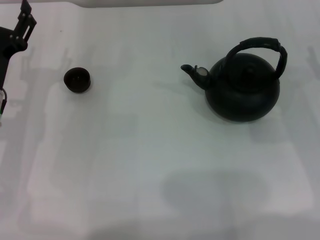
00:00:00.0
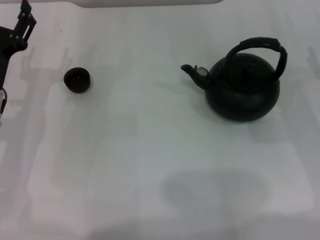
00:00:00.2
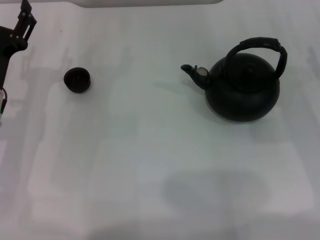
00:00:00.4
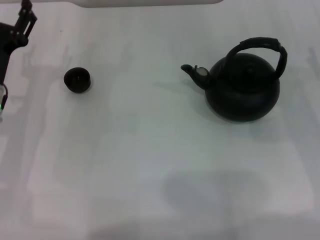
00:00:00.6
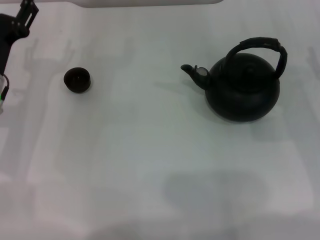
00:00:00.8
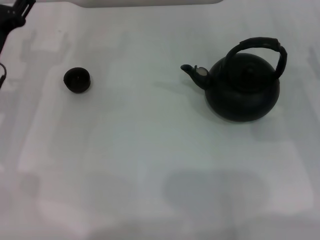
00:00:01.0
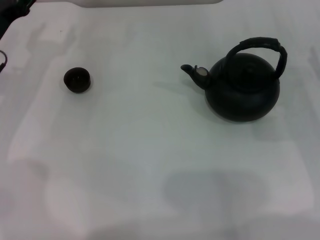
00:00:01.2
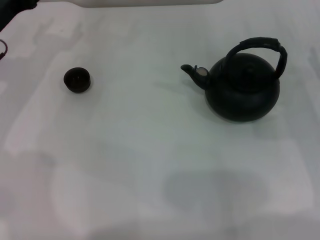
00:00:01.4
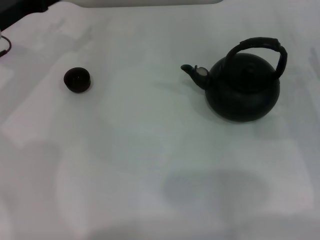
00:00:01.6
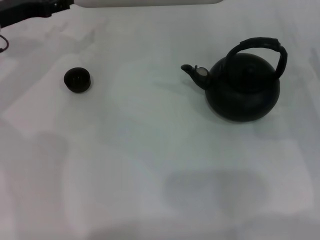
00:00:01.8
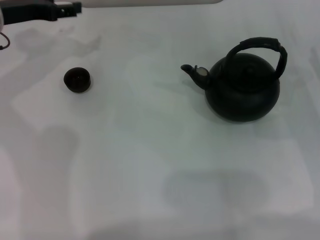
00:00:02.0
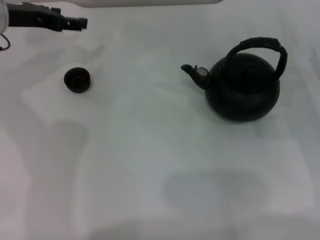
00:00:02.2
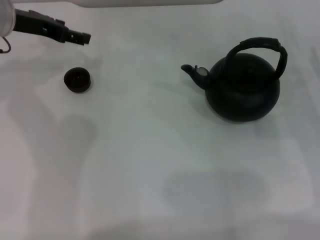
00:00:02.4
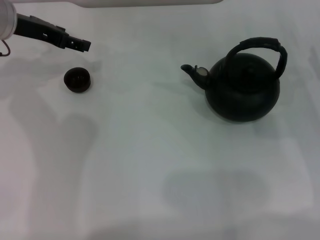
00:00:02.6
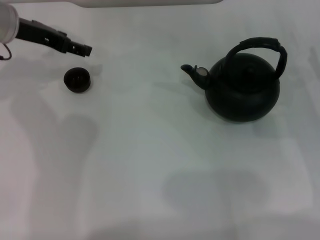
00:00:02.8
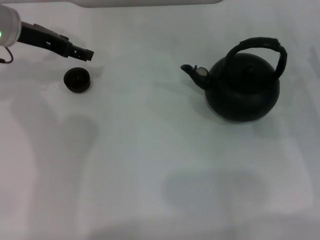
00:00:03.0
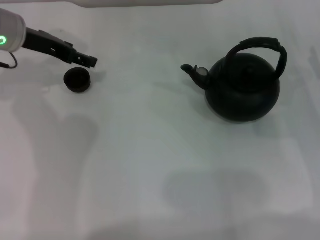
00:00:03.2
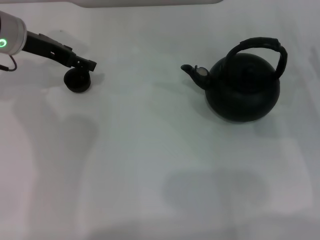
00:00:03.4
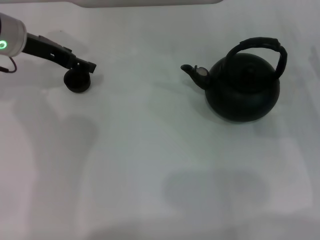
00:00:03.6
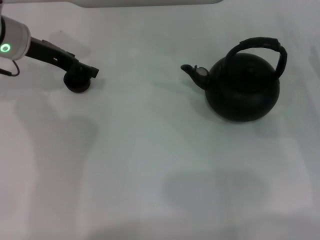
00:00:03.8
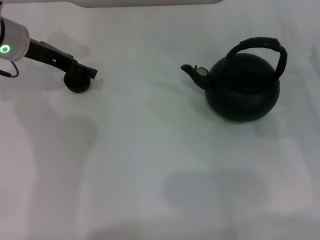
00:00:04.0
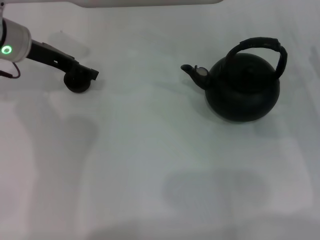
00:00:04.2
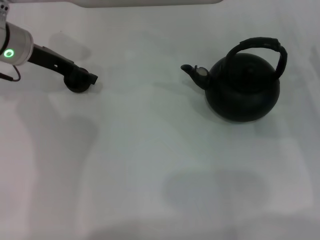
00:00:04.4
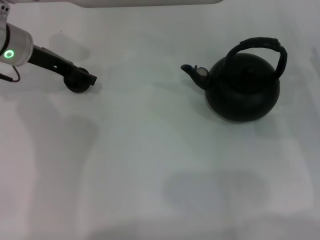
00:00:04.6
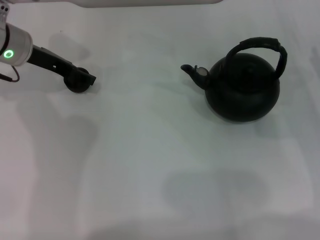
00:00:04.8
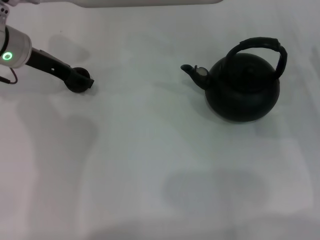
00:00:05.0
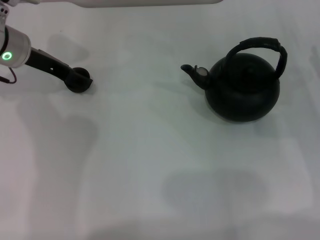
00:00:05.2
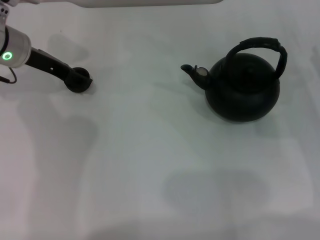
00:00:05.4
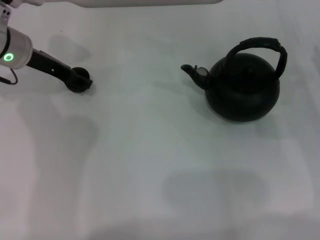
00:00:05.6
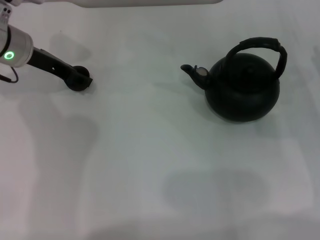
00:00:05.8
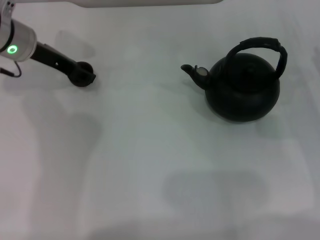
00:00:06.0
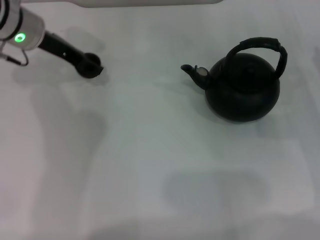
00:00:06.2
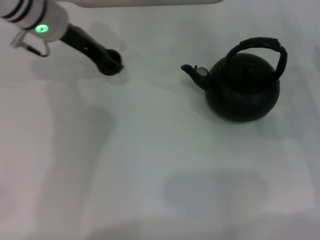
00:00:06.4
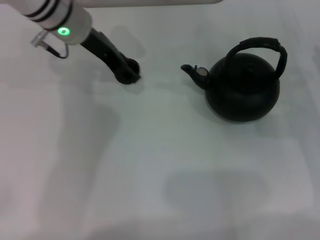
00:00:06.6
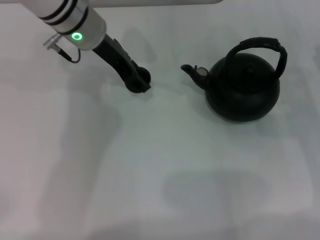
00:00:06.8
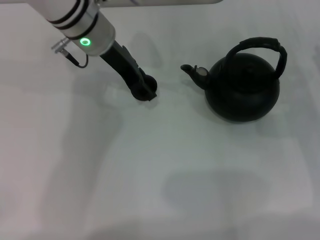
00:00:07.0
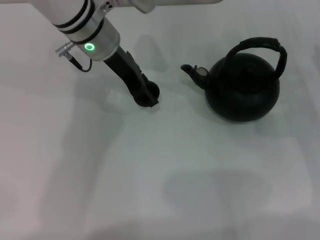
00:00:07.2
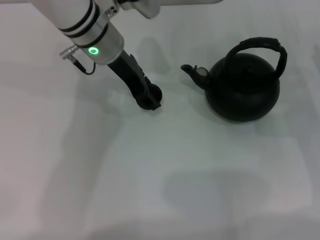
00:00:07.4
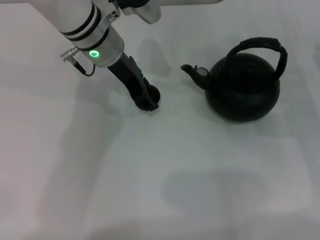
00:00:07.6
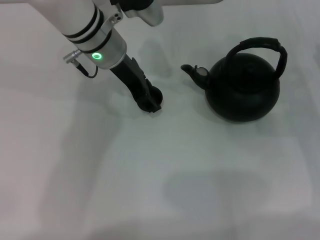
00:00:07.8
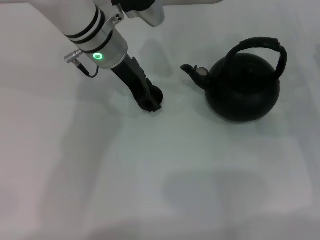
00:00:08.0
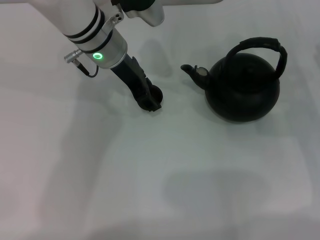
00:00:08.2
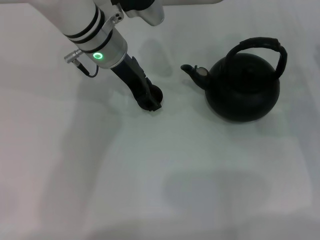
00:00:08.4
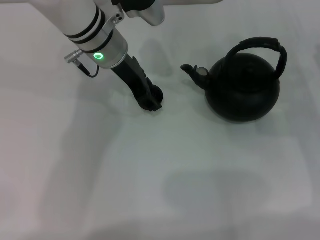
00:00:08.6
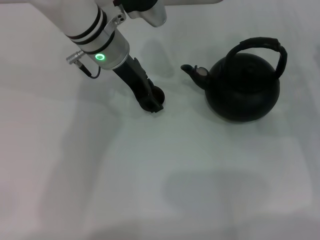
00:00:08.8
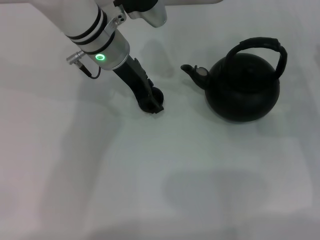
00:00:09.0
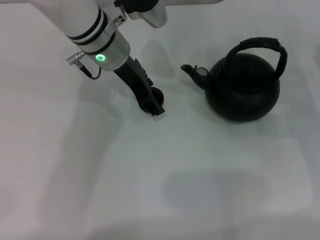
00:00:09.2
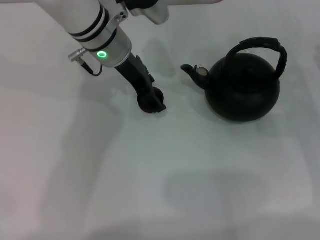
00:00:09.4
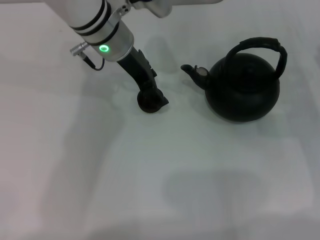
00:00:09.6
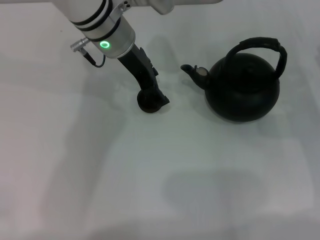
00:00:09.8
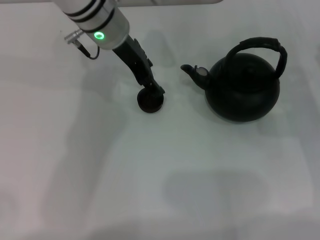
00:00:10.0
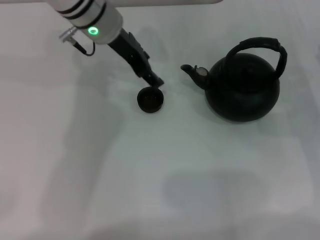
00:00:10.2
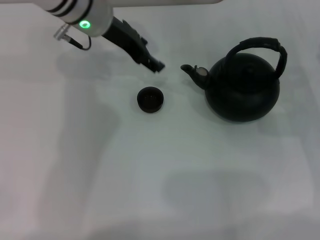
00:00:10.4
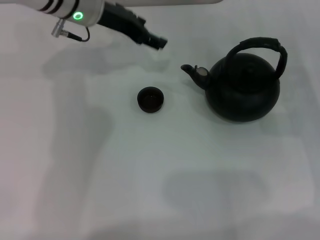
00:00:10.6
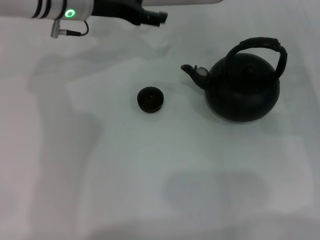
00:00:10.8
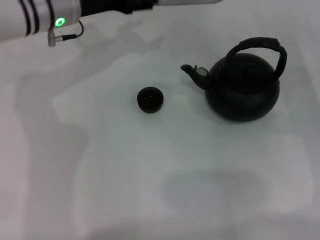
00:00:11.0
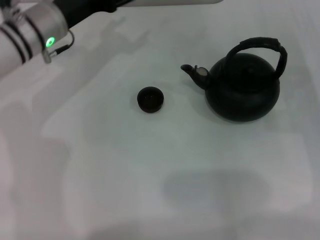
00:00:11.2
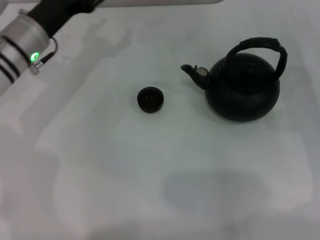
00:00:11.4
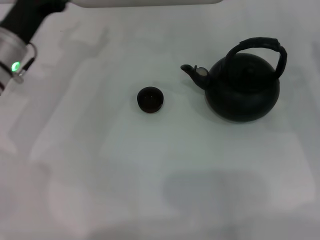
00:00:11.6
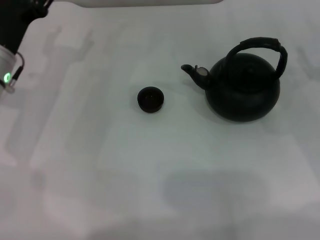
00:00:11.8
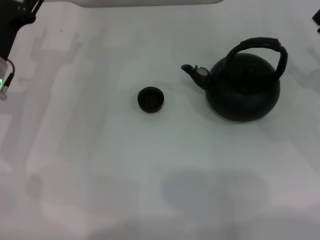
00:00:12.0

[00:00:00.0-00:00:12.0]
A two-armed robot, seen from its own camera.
Task of the whole recording: Grasp the handle of the teapot with one hand and pour tea into the teacup.
Step, 00:00:00.0 to 00:00:06.6: Pick up the teacup with the left gripper.
Step, 00:00:06.8 to 00:00:10.2: Place the teacup in the center of view with the left gripper.
00:00:00.0 to 00:00:01.6: The left gripper heads forward and upward, covering some 15 cm.
00:00:01.6 to 00:00:03.0: The left gripper changes place by about 5 cm.
00:00:03.0 to 00:00:04.4: There are only small adjustments of the grippers.
00:00:04.4 to 00:00:06.0: The left gripper closes.
00:00:06.0 to 00:00:07.6: The left gripper is displaced to the right by about 15 cm.
00:00:07.6 to 00:00:09.0: Both grippers stay put.
00:00:09.0 to 00:00:10.4: The left gripper opens up.
00:00:10.4 to 00:00:12.0: The left gripper travels to the left, backward and downward by about 20 cm.

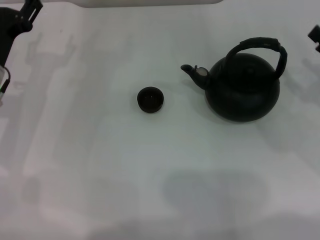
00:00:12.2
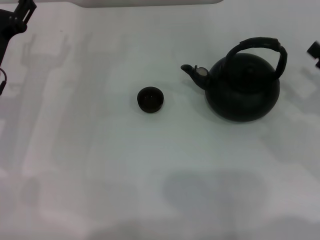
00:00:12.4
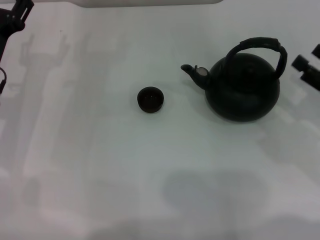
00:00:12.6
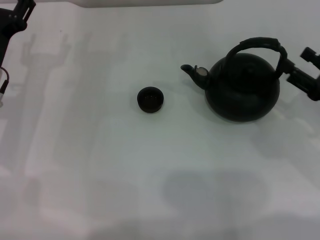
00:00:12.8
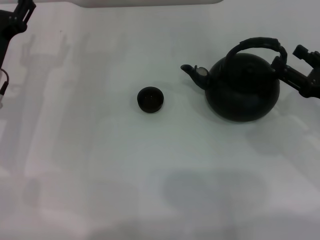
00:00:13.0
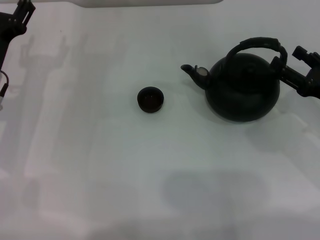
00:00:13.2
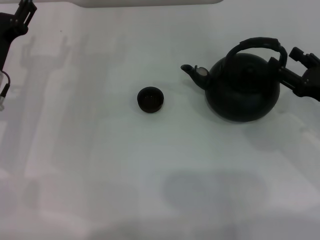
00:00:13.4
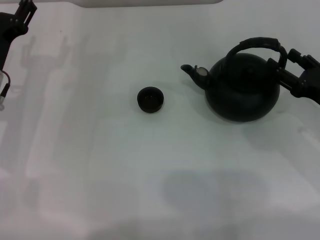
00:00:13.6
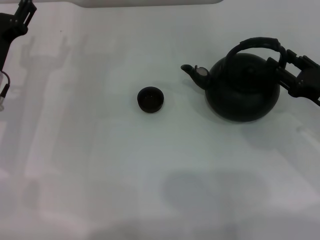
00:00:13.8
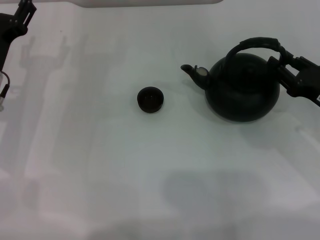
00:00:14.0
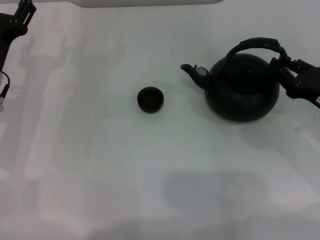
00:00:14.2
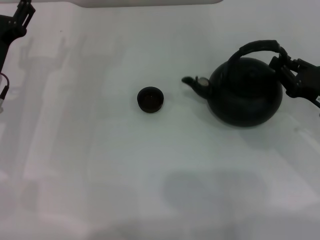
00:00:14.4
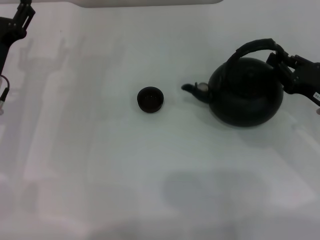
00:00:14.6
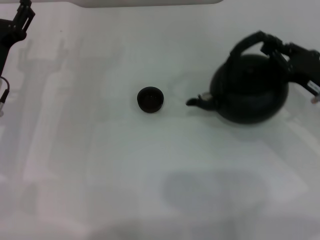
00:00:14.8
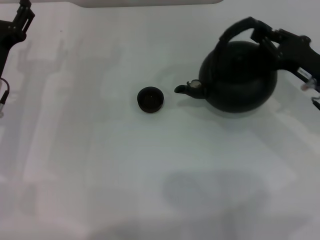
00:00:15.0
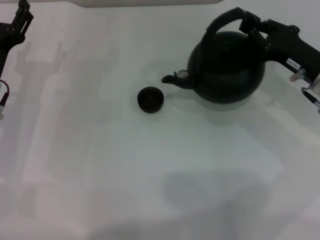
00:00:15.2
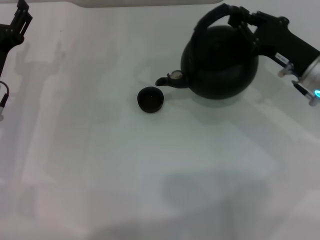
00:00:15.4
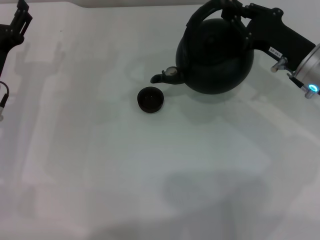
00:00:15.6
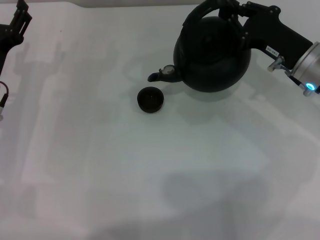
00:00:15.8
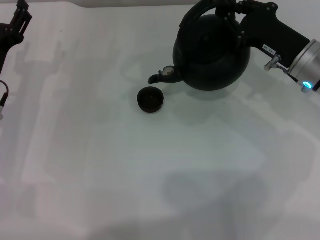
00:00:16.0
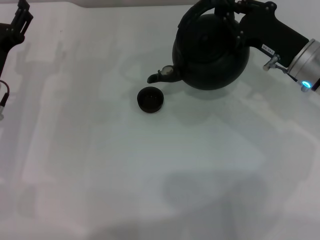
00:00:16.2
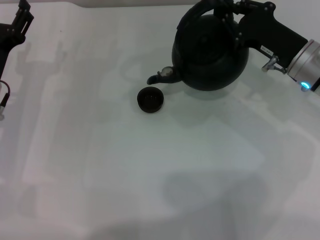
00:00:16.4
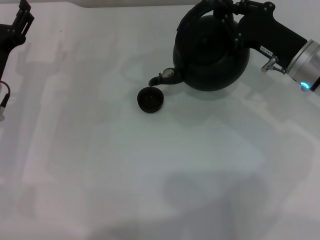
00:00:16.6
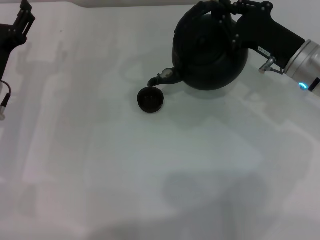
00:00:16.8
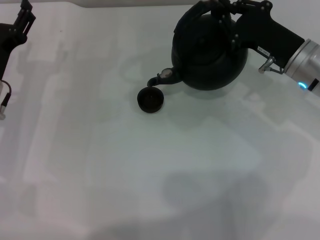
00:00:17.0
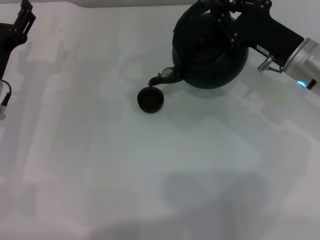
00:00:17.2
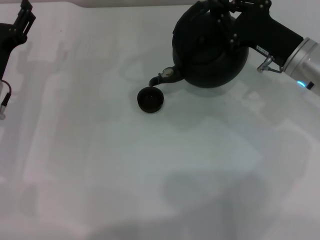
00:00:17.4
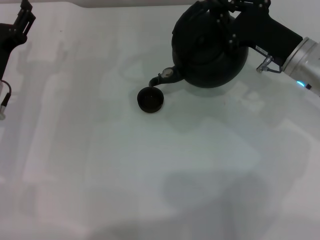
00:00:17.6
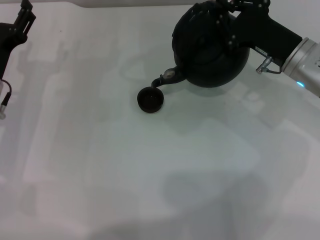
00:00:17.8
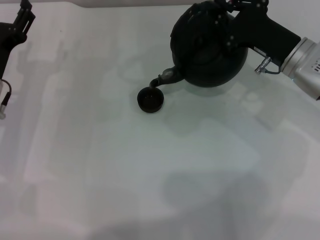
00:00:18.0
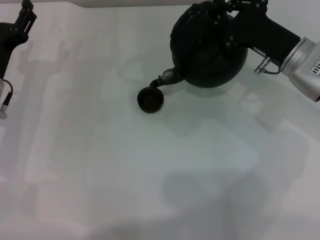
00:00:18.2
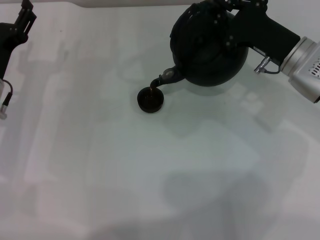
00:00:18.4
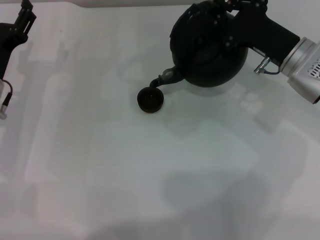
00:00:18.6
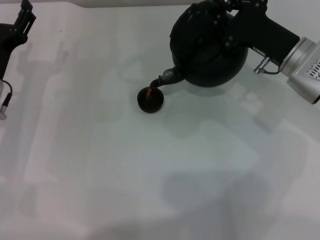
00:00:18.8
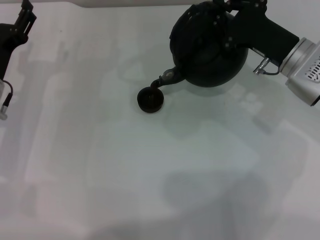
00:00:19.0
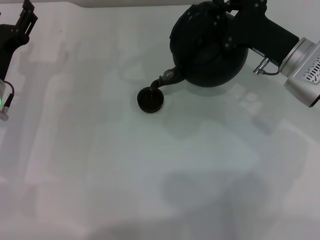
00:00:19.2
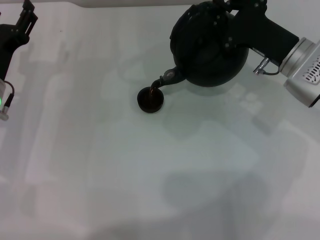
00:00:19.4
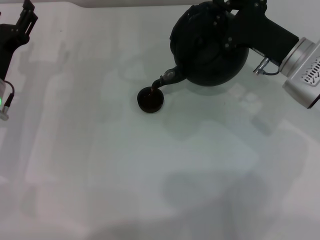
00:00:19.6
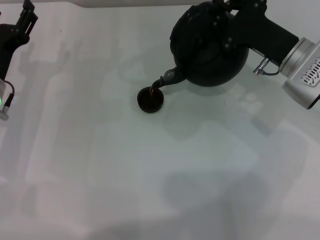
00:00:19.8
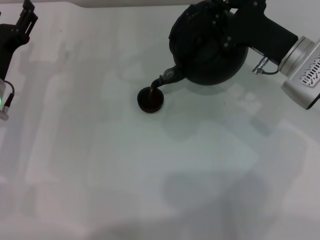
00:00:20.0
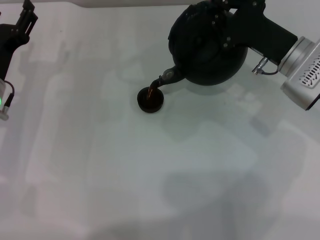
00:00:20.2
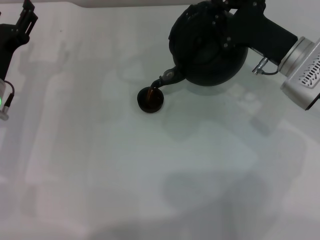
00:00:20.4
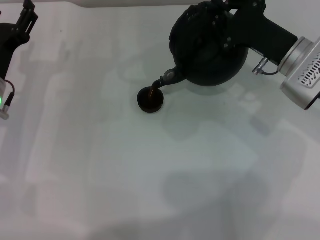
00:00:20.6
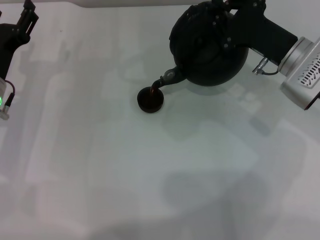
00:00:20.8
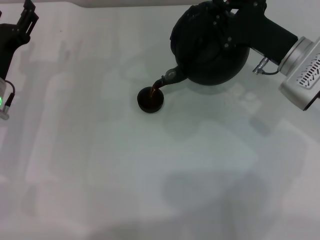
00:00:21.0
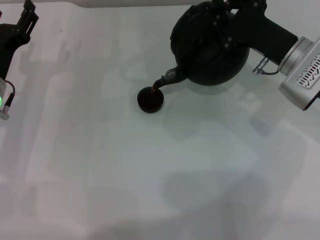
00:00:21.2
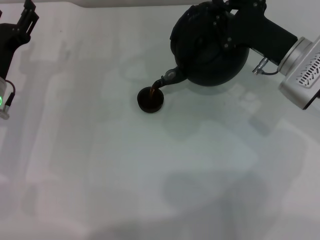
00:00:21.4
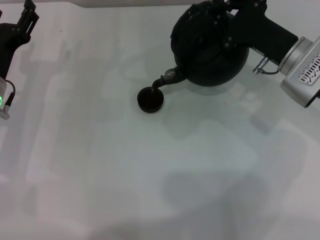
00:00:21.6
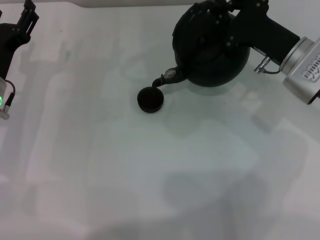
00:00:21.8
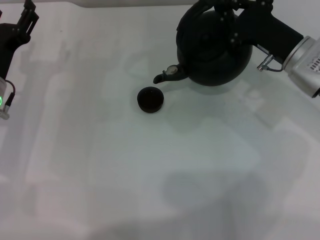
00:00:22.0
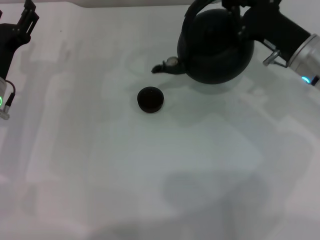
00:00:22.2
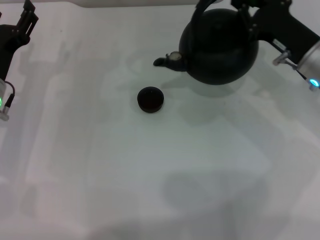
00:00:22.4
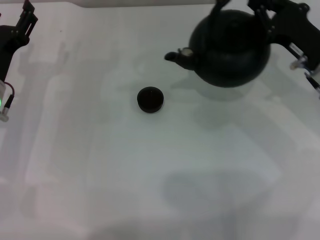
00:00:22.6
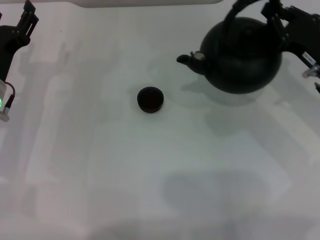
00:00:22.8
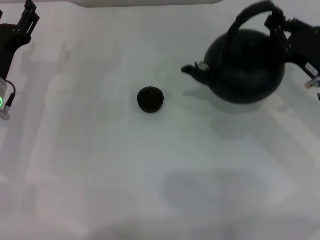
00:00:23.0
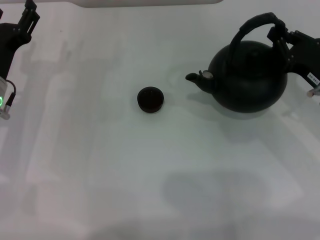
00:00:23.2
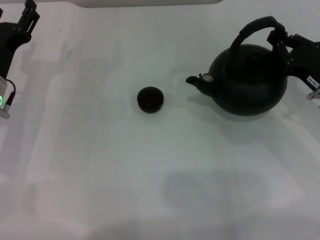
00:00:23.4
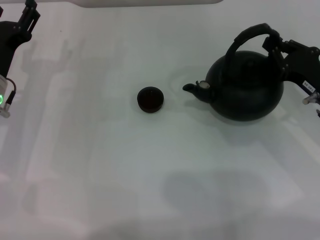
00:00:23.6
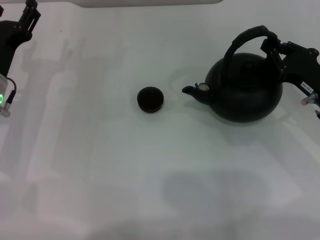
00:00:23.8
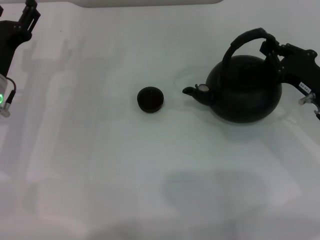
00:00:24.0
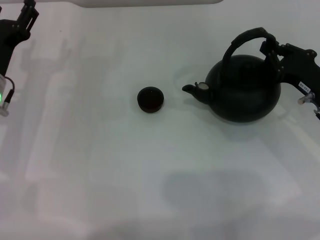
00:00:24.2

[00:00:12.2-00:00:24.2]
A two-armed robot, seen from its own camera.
Task of the whole recording: Grasp the handle of the teapot with one hand and pour tea into the teacup.
Step, 00:00:12.2 to 00:00:15.2: Pick up the teapot with the right gripper.
Step, 00:00:15.4 to 00:00:22.0: Pour tea into the teacup with the right gripper.
00:00:12.2 to 00:00:13.8: The right gripper changes place by about 5 cm.
00:00:13.8 to 00:00:15.2: The right gripper goes some 5 cm forward, and closes up.
00:00:15.2 to 00:00:16.6: The grippers move only a little.
00:00:16.6 to 00:00:18.2: The grippers stay close to where they were, moving slightly.
00:00:18.2 to 00:00:19.8: The grippers make only small movements.
00:00:19.8 to 00:00:21.2: Both grippers stay about where they are.
00:00:22.6 to 00:00:24.2: The right gripper ends up roughly 5 cm from where it was.
